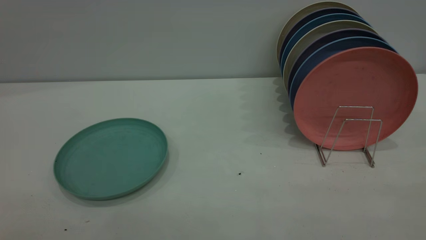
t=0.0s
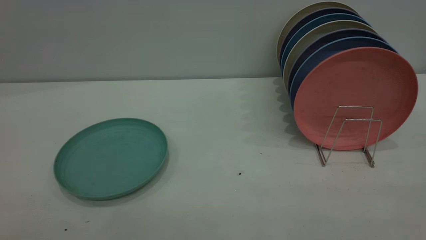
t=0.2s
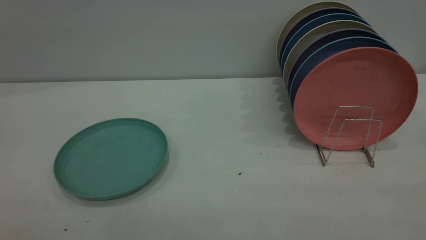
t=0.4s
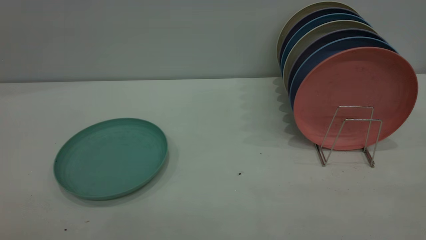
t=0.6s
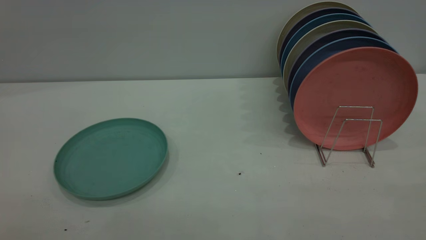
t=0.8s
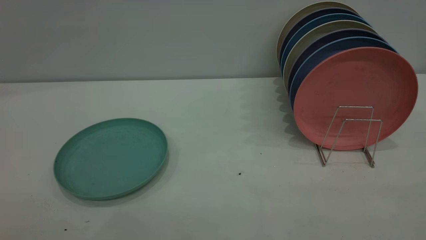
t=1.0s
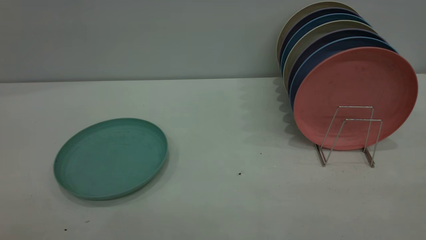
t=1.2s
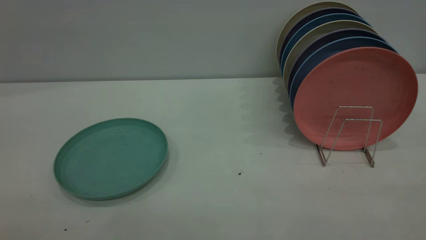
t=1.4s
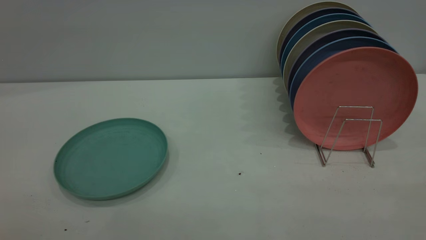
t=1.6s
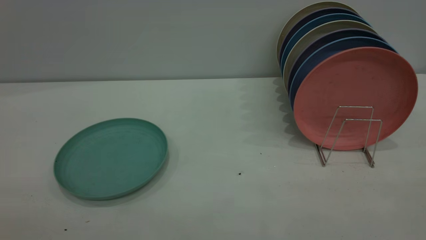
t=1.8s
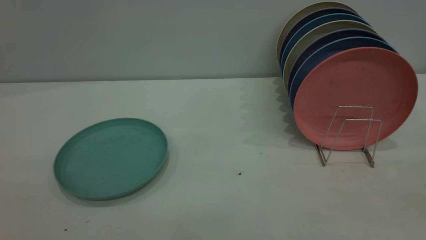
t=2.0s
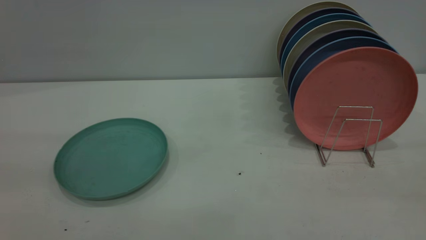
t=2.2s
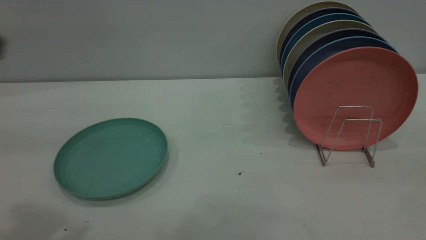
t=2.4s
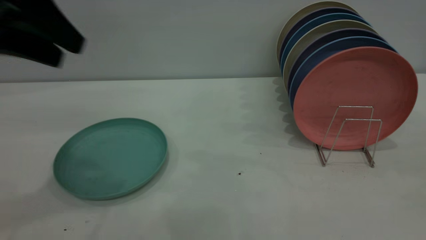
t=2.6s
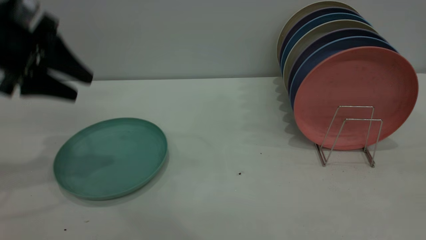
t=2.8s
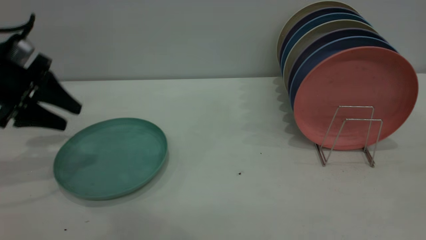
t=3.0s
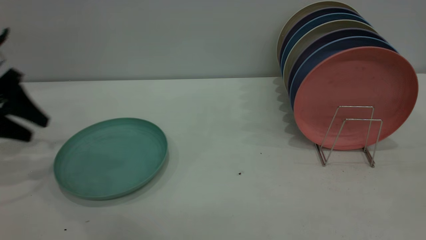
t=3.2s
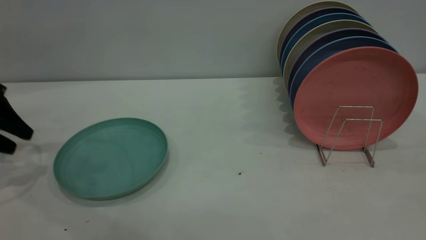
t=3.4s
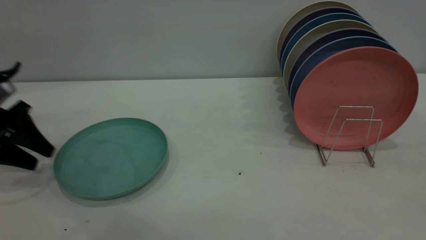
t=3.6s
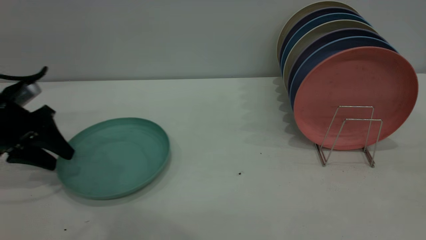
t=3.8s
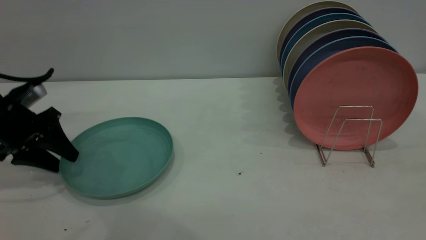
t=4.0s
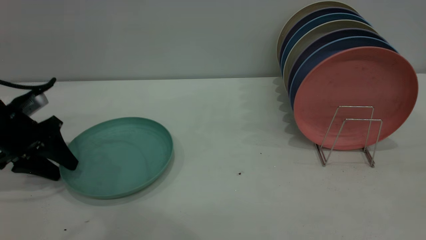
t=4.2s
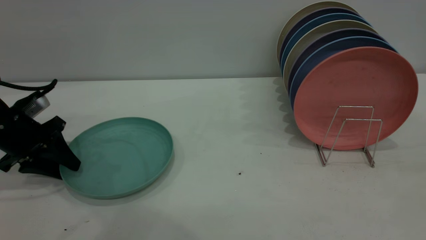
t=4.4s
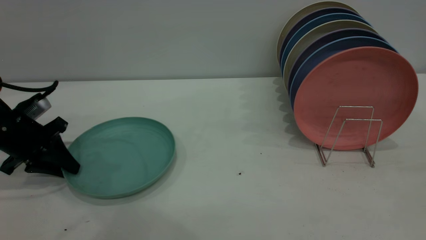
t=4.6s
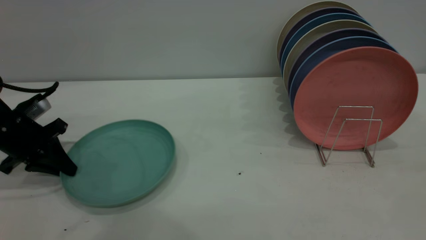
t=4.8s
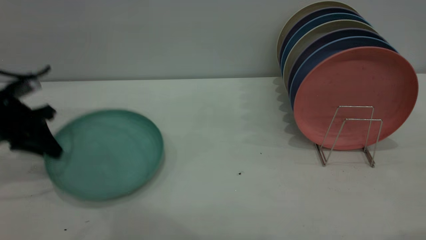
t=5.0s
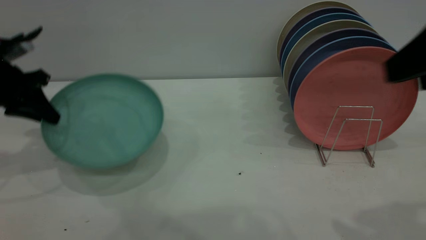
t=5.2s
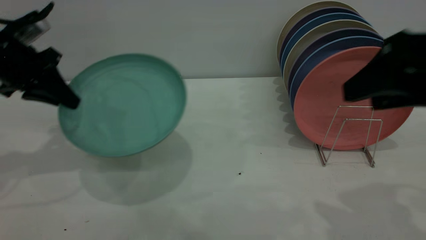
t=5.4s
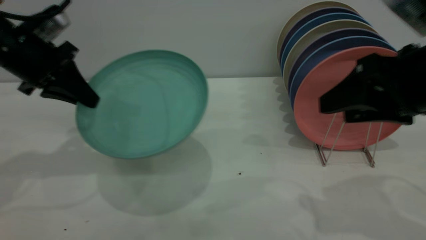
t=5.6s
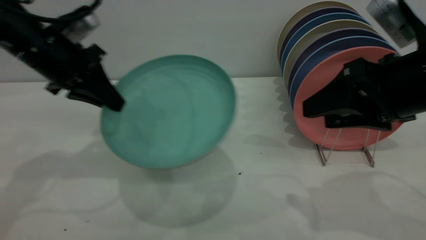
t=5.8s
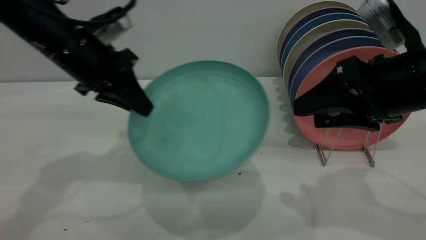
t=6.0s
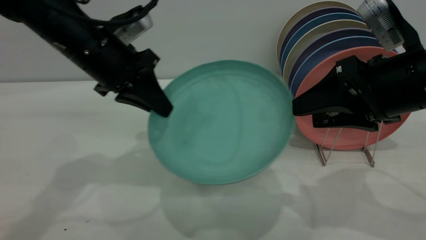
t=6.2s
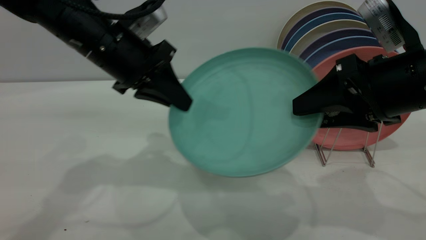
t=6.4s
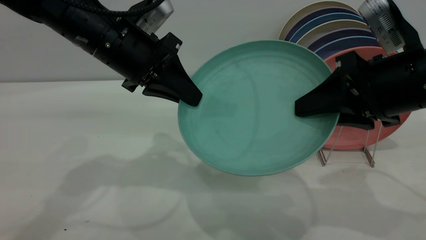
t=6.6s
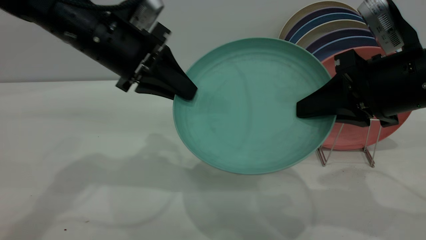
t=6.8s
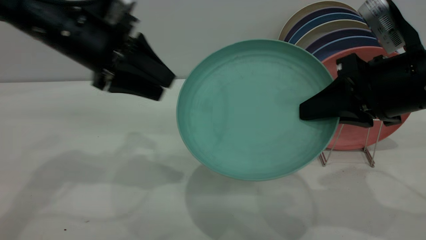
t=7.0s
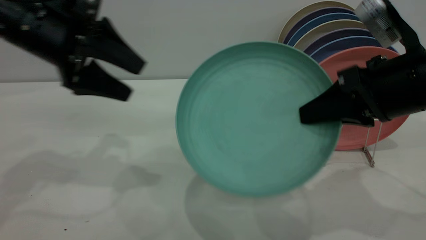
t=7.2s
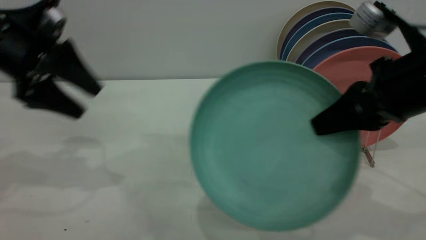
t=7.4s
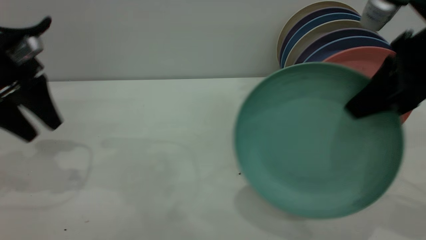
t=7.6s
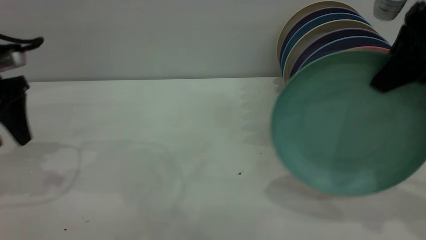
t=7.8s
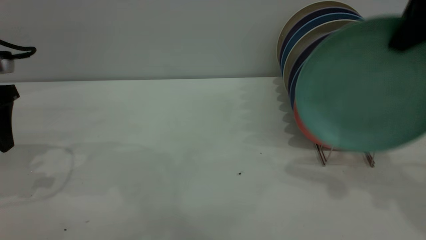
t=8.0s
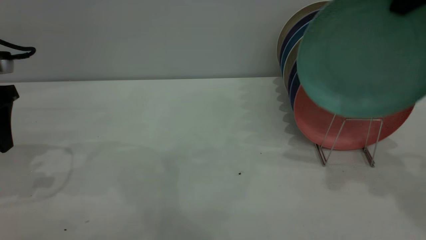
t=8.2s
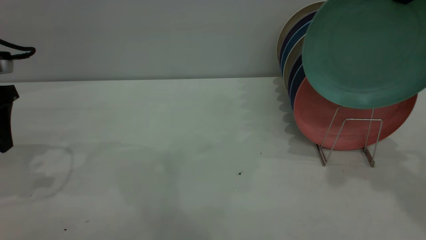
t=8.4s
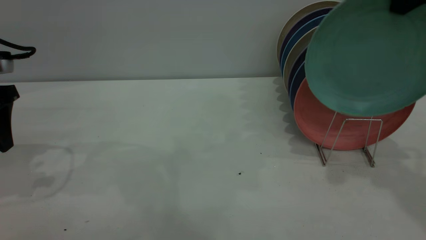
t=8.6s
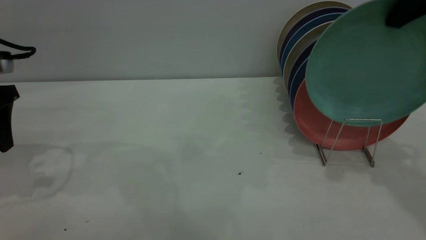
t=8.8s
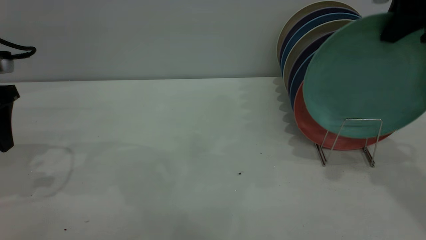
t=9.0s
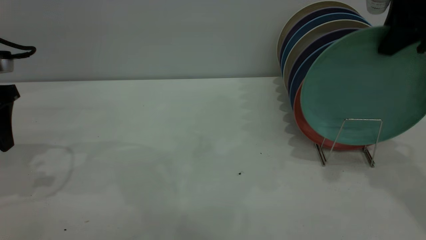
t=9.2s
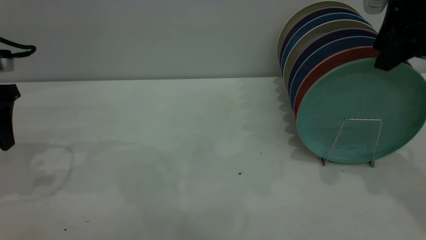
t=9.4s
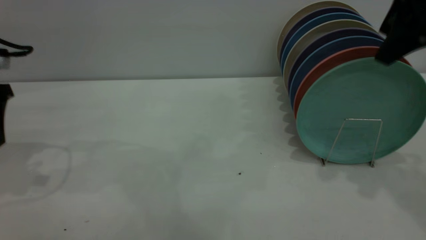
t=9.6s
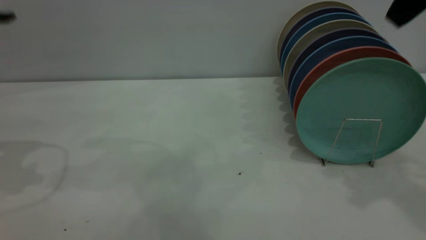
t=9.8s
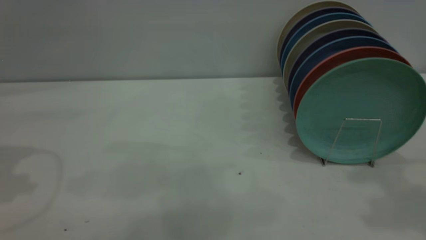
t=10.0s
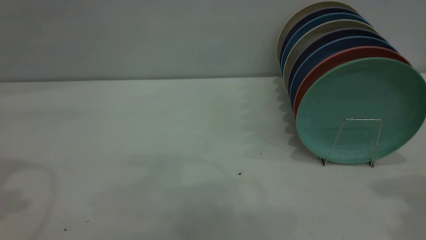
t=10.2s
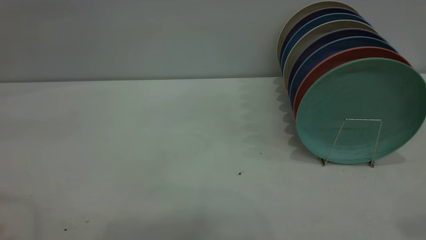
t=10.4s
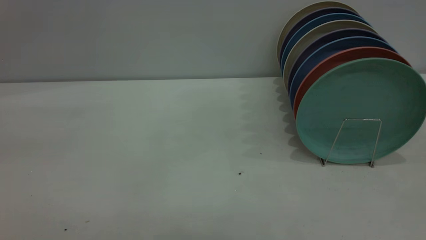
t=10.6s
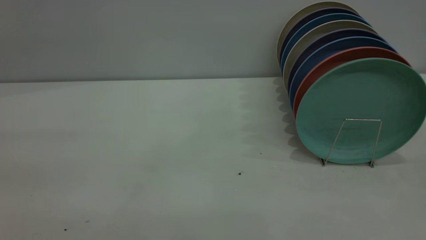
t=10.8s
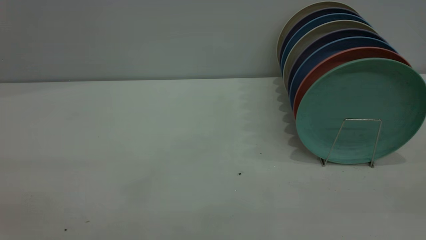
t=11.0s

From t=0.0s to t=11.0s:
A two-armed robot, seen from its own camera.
Task of the whole recording: the left gripper grasp the green plate, the left gripper pass the green plate to the right gripper, and the right gripper place the green plate on the plate rack.
Step, from t=0.0s to t=5.0s: Pick up the plate with the left gripper.
Step, from t=5.2s to t=7.0s: Pass the plate from the left gripper to the right gripper.
Step, from t=7.2s to t=9.6s: Place the plate on the shelf.
From t=0.0s to t=1.6s: Both grippers stay about where they are.
From t=1.6s to t=3.2s: The left gripper heads forward and downward, covering about 40 cm.
From t=3.2s to t=4.8s: The left gripper shifts some 5 cm downward, and closes.
From t=4.8s to t=6.2s: The right gripper is displaced downward and forward by approximately 20 cm; the left gripper shifts roughly 25 cm to the right and upward.
From t=6.2s to t=7.8s: The right gripper shifts some 10 cm upward, and closes. Meanwhile the left gripper is displaced to the left by some 20 cm, and opens.
From t=7.8s to t=9.4s: The right gripper goes approximately 5 cm forward, and opens up.
From t=9.4s to t=11.0s: The left gripper shifts about 35 cm backward and upward. Meanwhile the right gripper heads backward, covering approximately 35 cm.

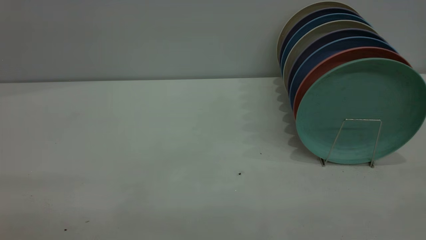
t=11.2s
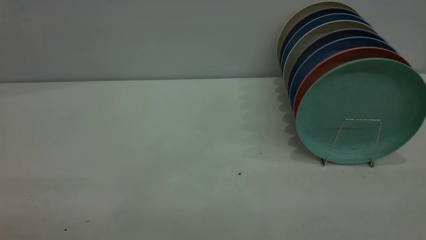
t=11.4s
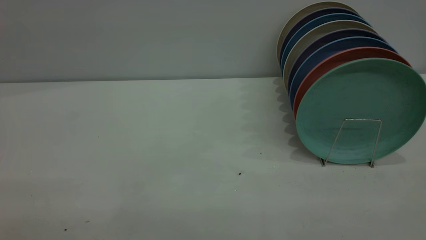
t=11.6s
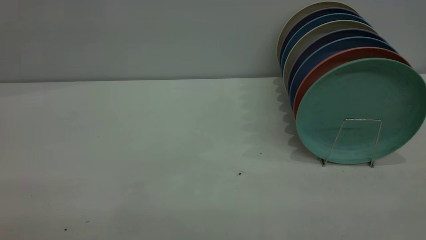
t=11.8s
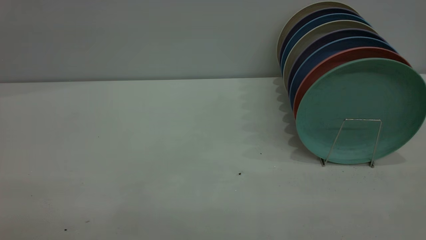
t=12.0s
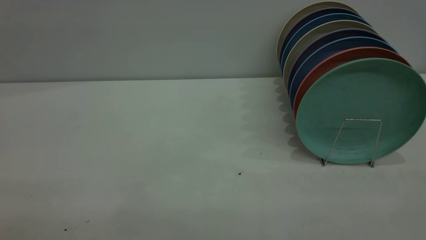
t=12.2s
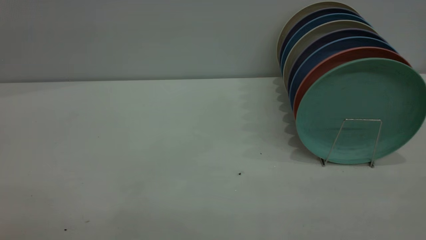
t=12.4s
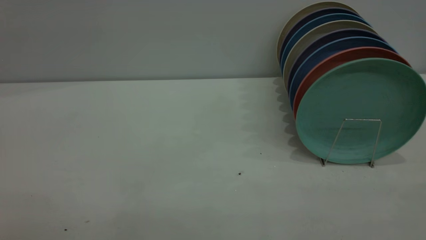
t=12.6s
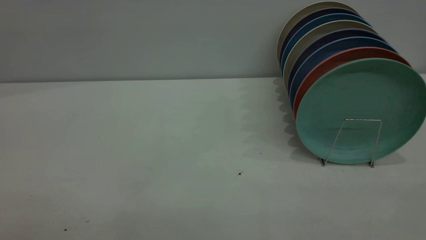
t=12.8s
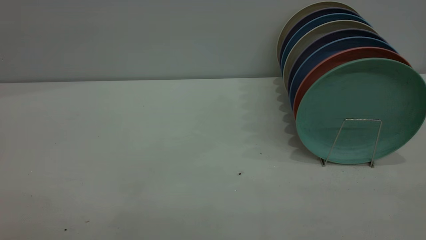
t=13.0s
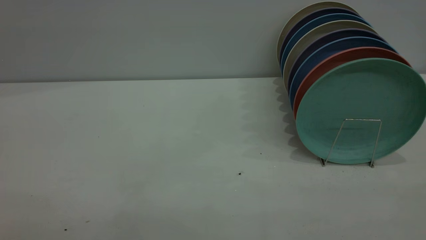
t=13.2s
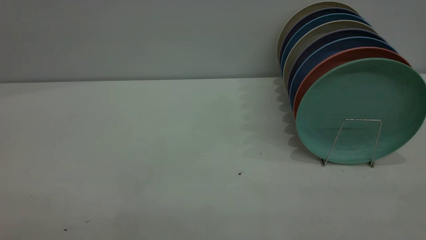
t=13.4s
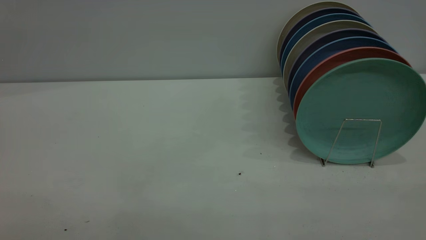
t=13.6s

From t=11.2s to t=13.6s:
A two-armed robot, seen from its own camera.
Task of the whole recording: the left gripper grasp the green plate, the left gripper pass the green plate to the right gripper, and the right gripper place the green plate on the plate rack.
From t=12.4s to t=13.6s: Both grippers stay put.
